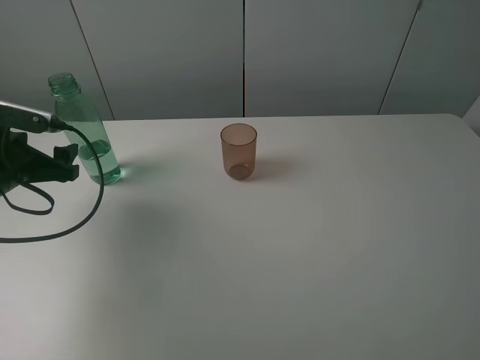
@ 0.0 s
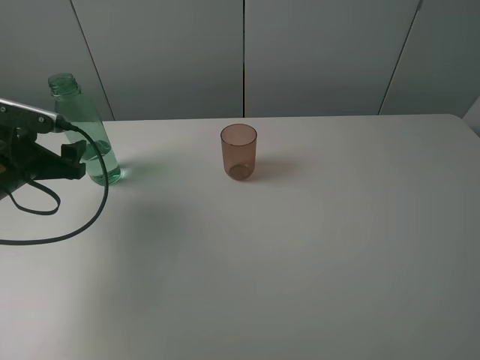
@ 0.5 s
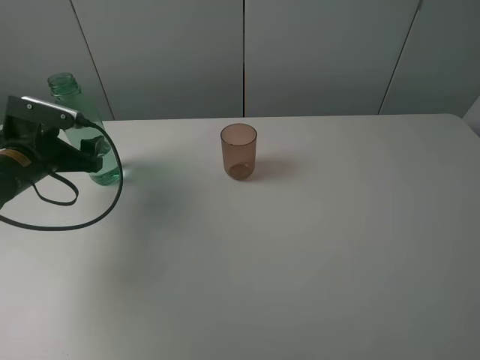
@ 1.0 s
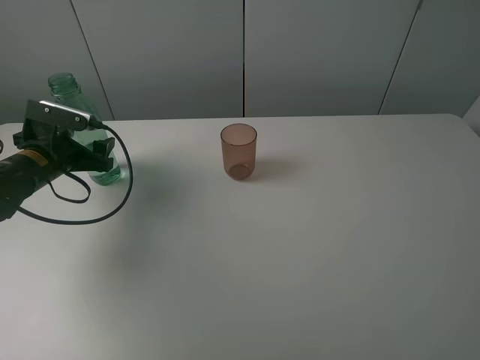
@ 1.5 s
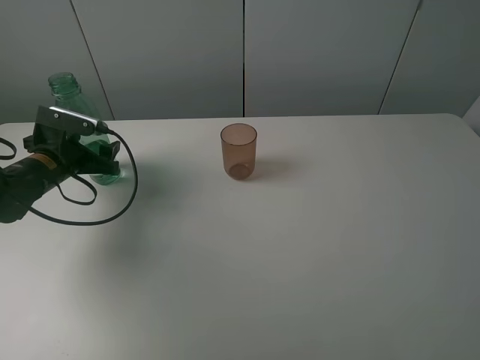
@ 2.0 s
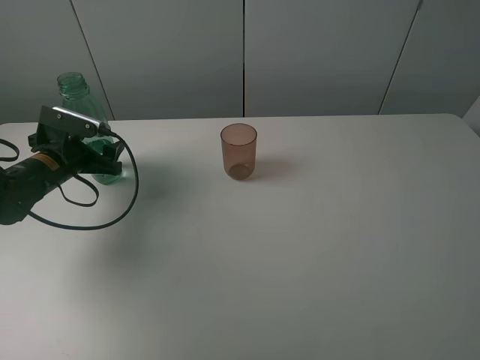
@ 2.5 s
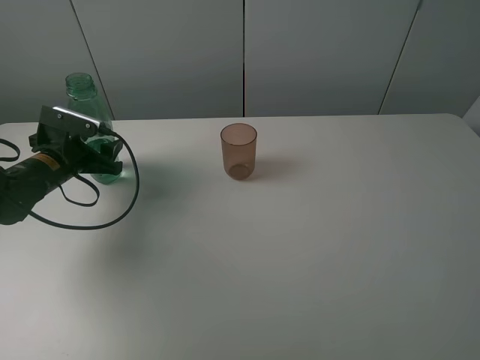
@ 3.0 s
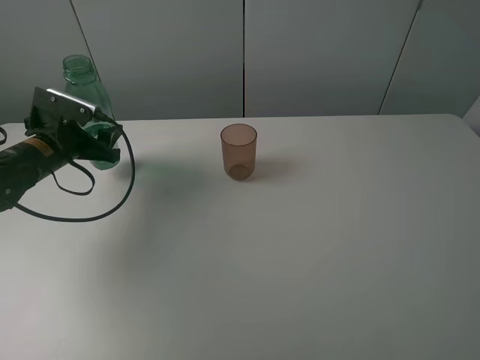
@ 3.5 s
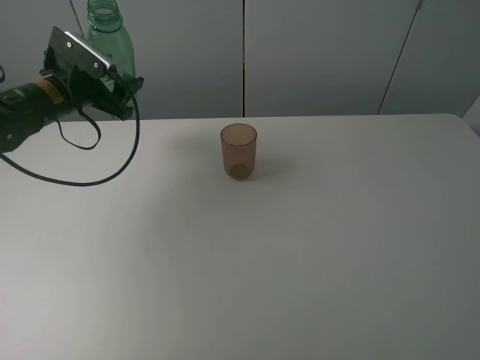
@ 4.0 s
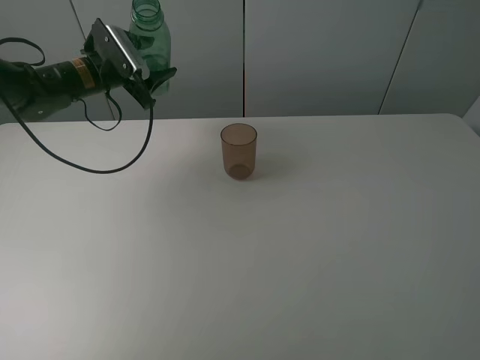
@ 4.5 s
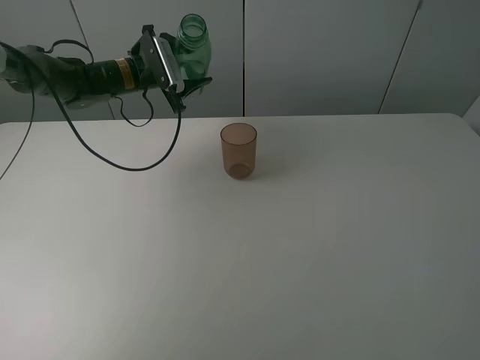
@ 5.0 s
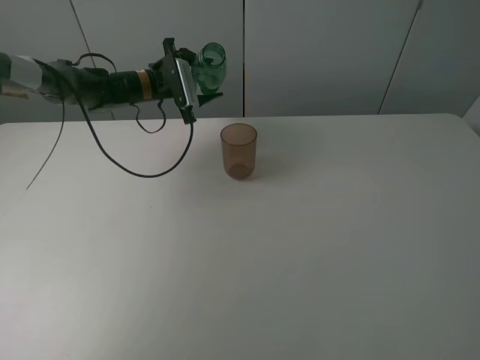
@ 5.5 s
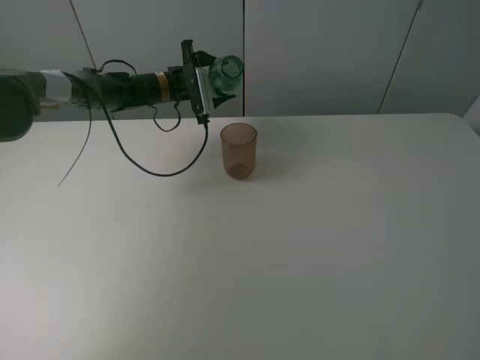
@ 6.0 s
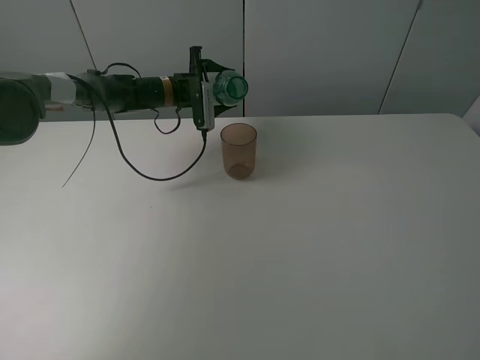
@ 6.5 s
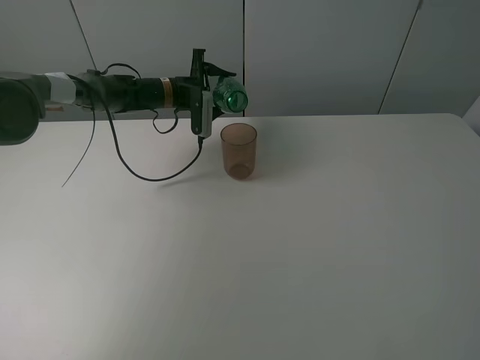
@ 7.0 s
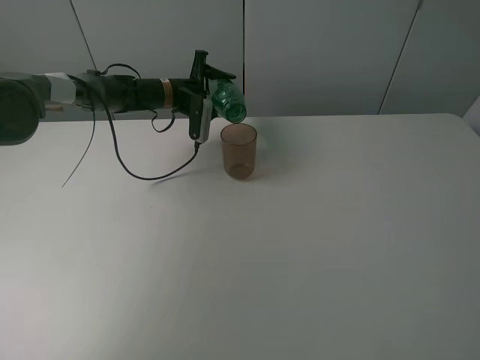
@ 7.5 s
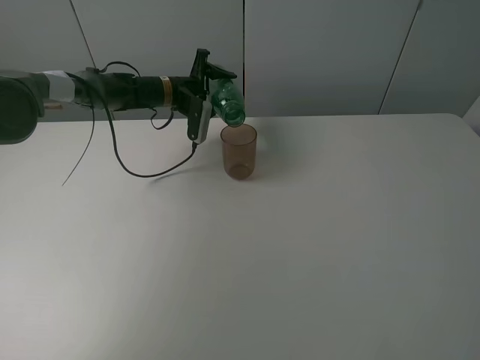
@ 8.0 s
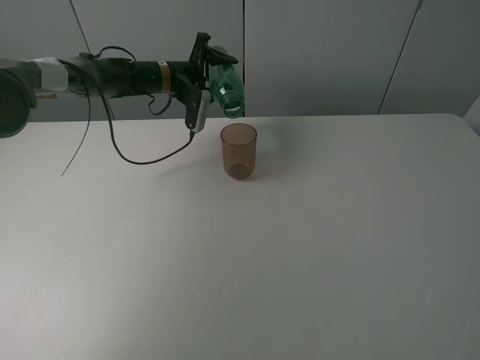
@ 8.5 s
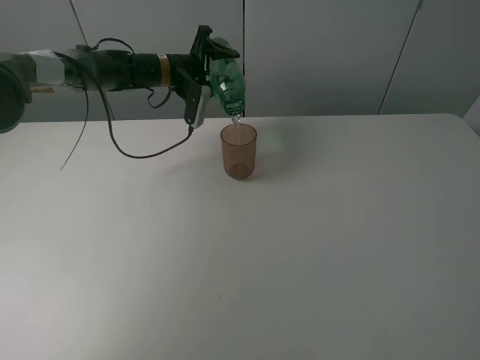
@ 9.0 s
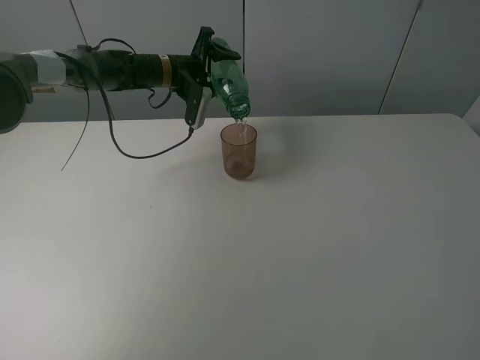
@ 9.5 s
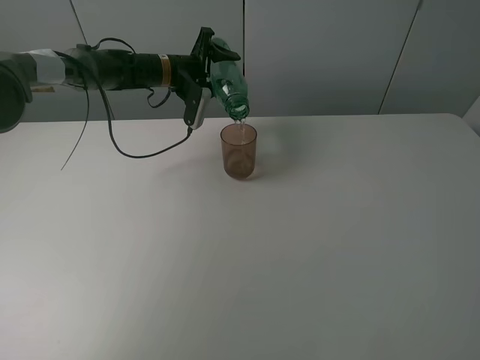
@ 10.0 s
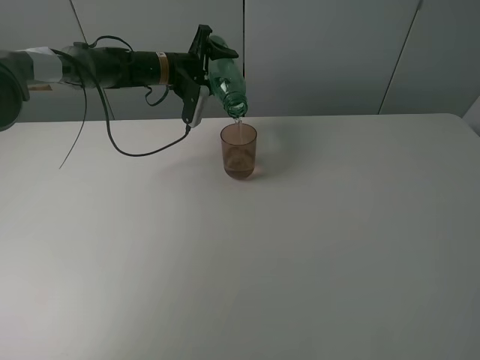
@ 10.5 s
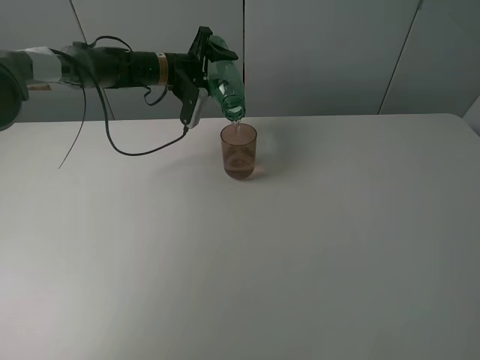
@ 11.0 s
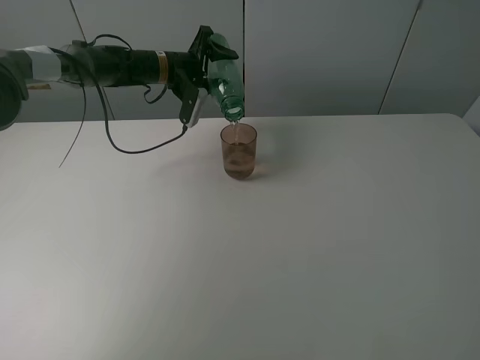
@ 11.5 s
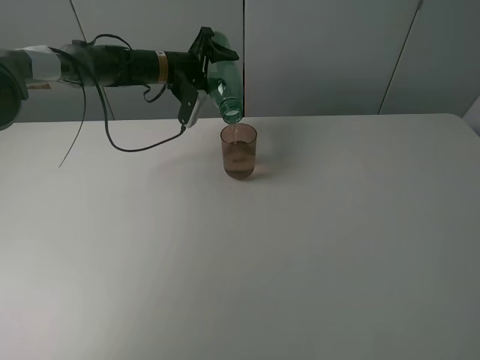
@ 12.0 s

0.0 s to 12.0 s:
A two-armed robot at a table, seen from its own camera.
Task of the whole recording: pick up the bottle filled with water and pour it into the pink cup.
Step, 0.0 to 3.0 s: Grasp the green bottle with the left gripper.
0.0 to 2.0 s: The left gripper goes approximately 10 cm forward and downward.
2.0 to 4.0 s: The left gripper moves upward and forward, approximately 10 cm, and closes.
4.0 to 6.0 s: The left gripper is displaced to the right, forward and downward by some 20 cm.
8.0 to 12.0 s: There are only small adjustments of the grippers.

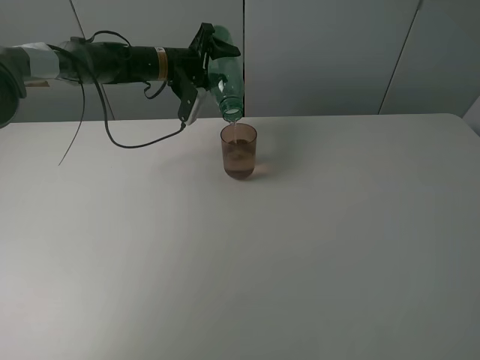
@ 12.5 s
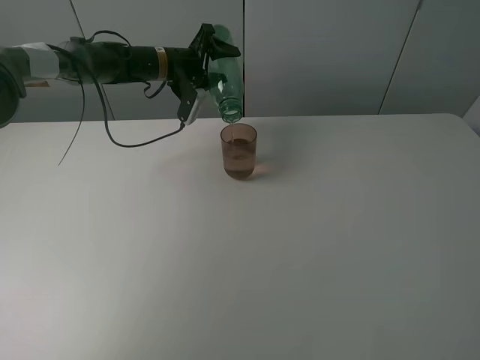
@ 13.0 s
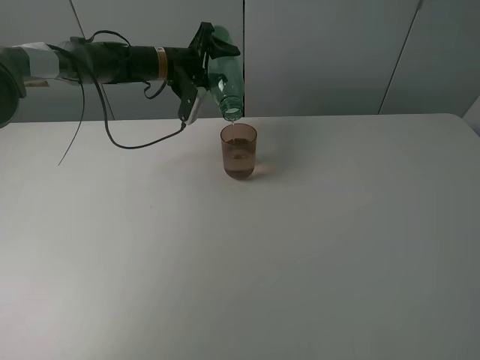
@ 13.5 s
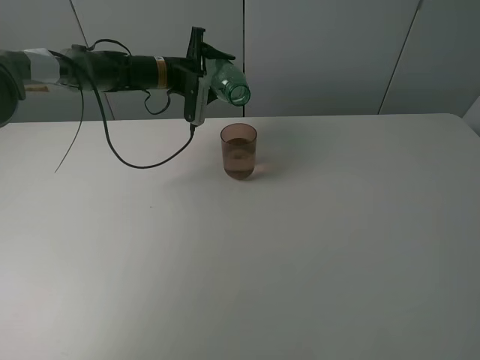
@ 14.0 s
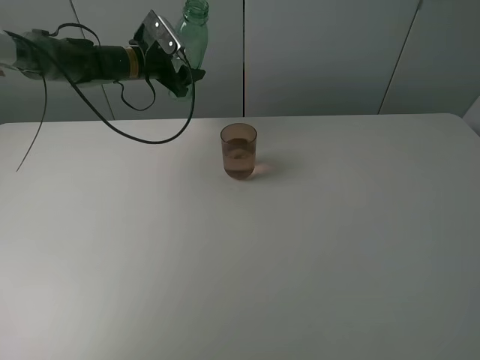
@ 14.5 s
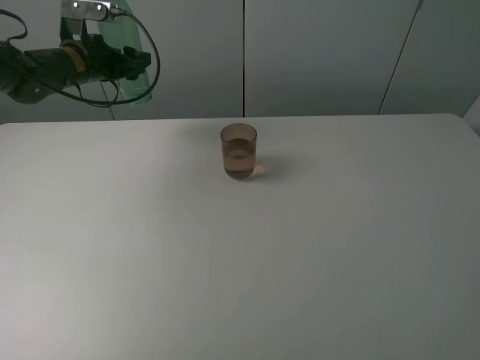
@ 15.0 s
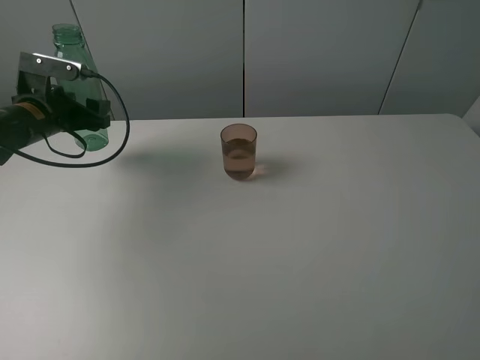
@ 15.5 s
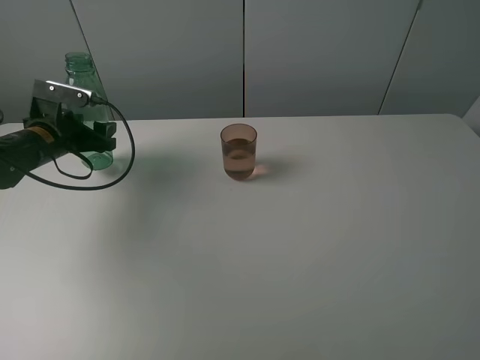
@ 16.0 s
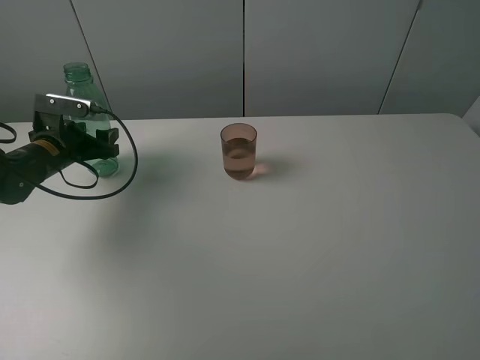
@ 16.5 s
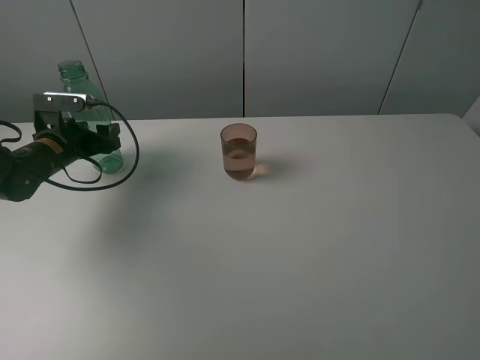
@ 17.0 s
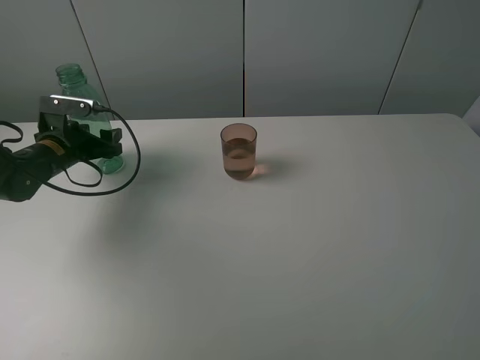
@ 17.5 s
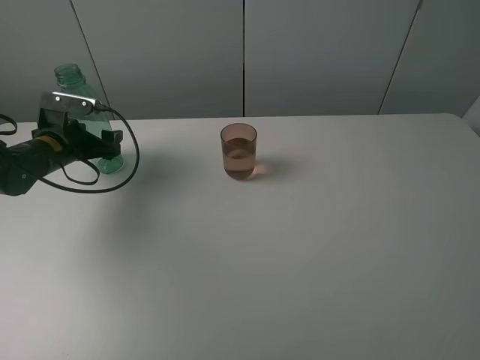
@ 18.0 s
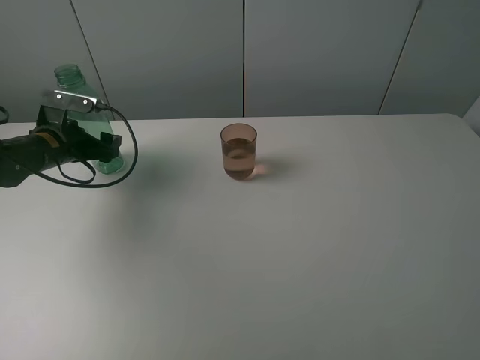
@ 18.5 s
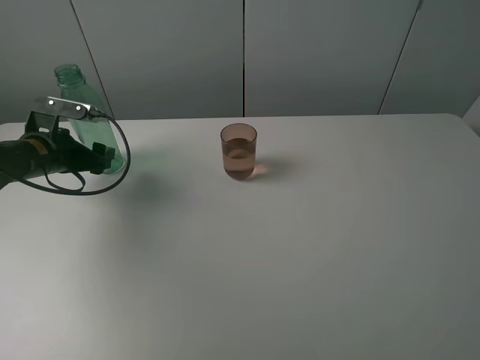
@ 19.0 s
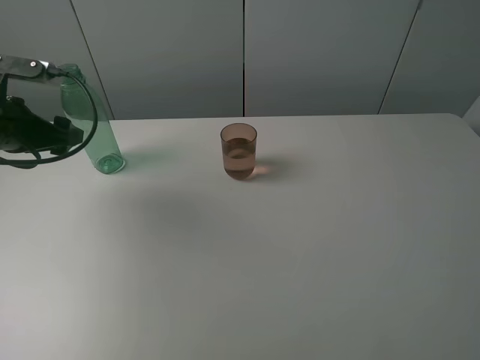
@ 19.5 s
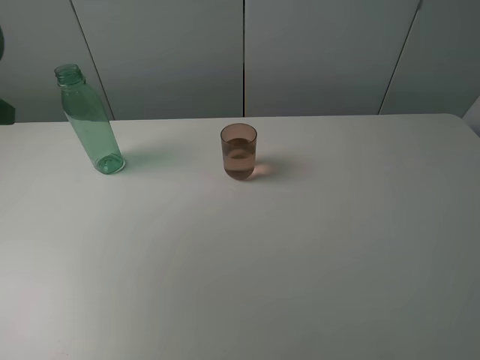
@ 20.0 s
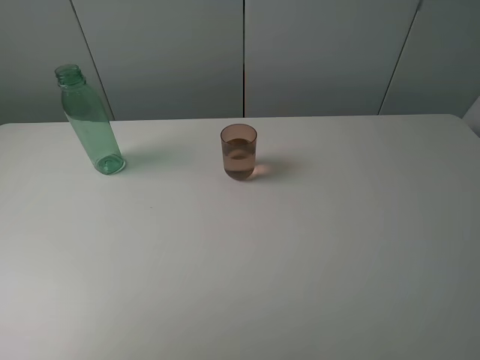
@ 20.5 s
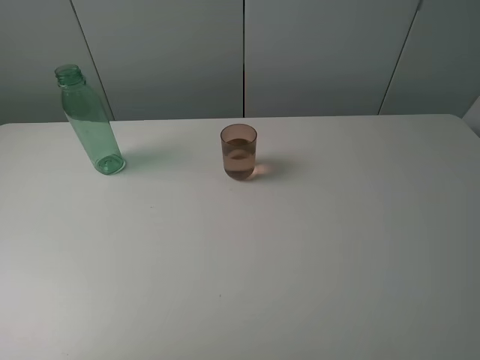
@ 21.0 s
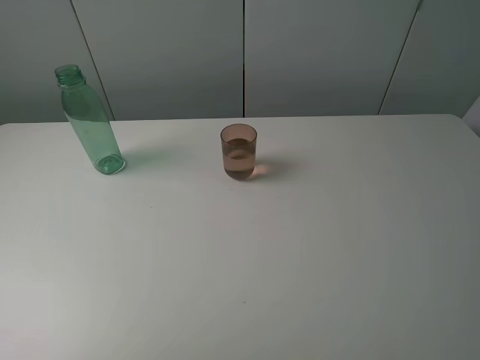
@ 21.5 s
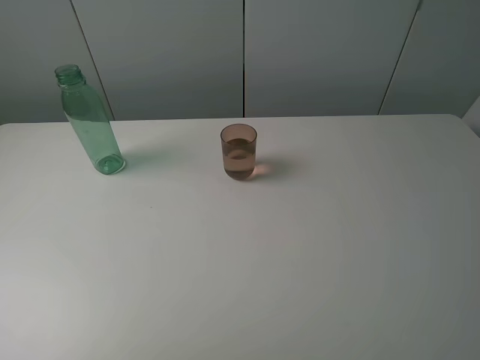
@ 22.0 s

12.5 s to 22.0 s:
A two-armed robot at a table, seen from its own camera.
Task of the whole recording: pick up the bottle filled with water and pour it into the pink cup.
Step, 14.5 to 19.0 s: Place the green bottle with the left gripper.
12.5 to 14.5 s: The left gripper shifts approximately 5 cm to the left.
14.5 to 16.5 s: The left gripper shifts about 20 cm backward, to the left and downward.
16.5 to 18.0 s: The left gripper opens up.
18.0 to 20.0 s: The left gripper moves upward and backward, approximately 30 cm.
20.0 to 22.0 s: The left gripper moves backward, roughly 20 cm.
